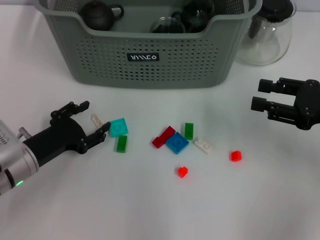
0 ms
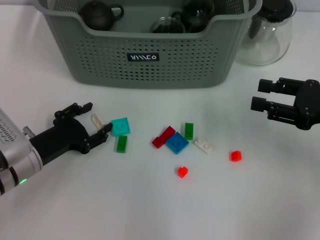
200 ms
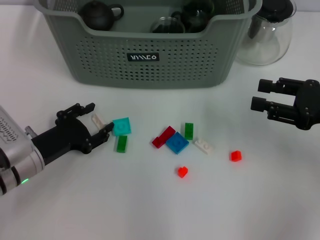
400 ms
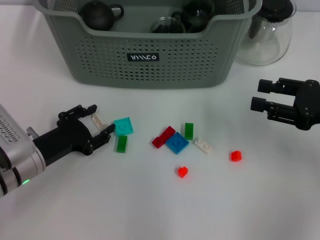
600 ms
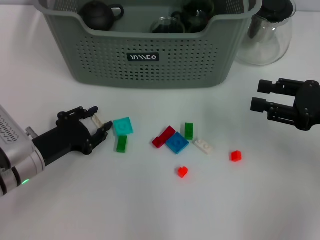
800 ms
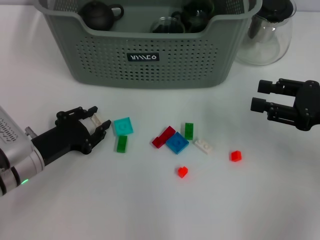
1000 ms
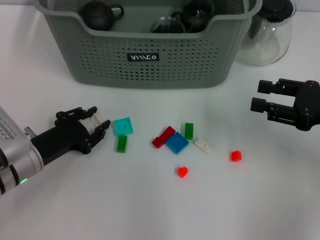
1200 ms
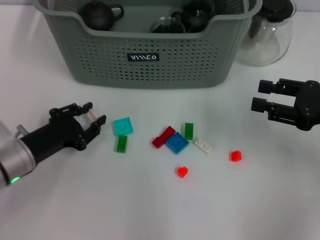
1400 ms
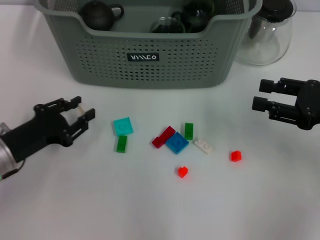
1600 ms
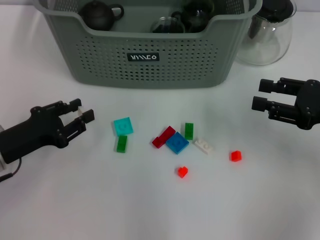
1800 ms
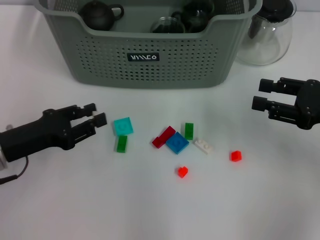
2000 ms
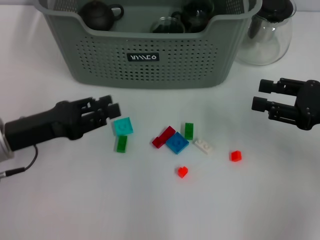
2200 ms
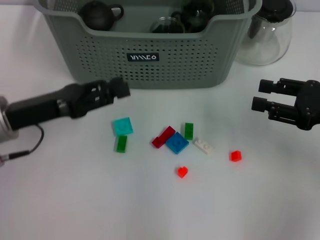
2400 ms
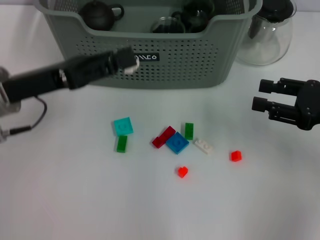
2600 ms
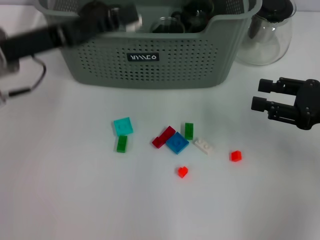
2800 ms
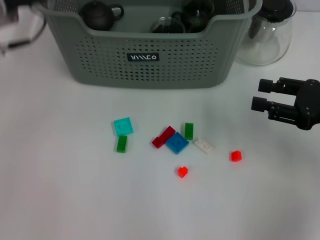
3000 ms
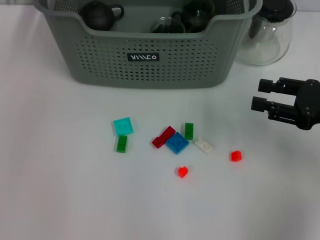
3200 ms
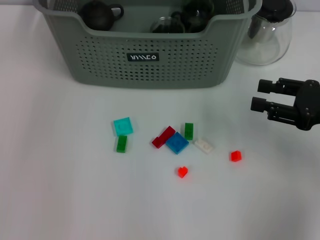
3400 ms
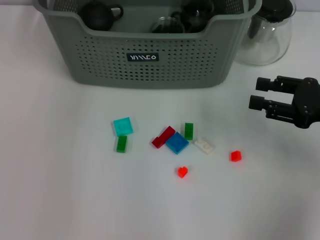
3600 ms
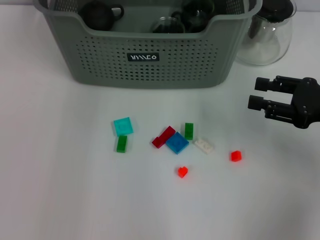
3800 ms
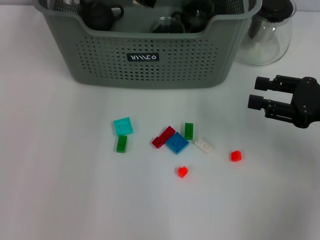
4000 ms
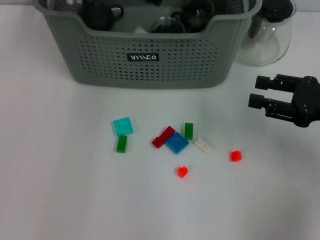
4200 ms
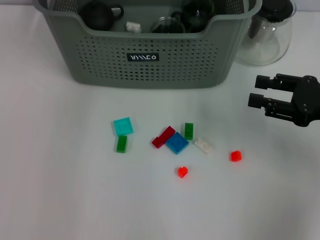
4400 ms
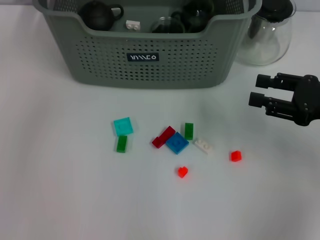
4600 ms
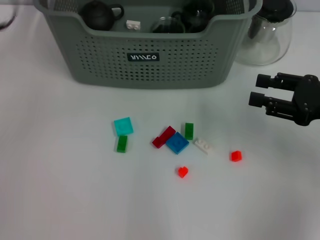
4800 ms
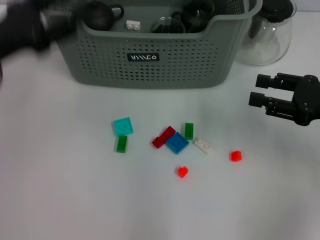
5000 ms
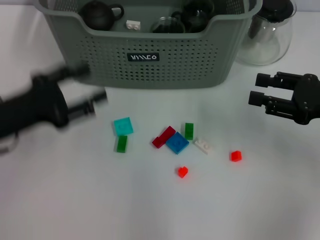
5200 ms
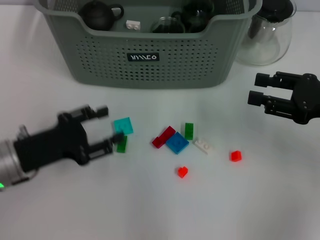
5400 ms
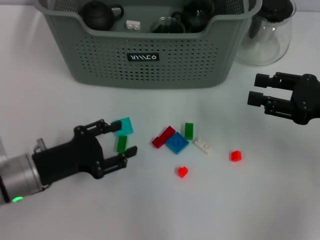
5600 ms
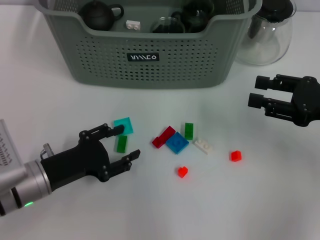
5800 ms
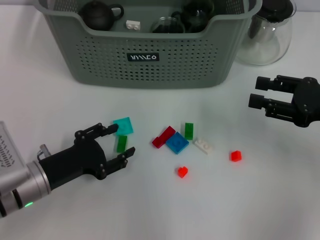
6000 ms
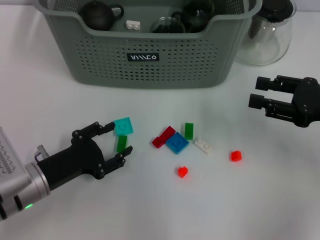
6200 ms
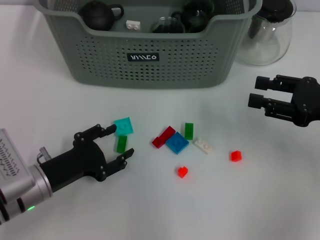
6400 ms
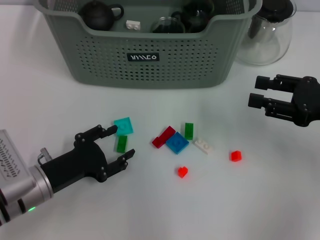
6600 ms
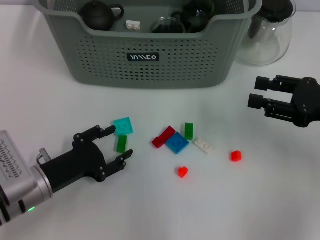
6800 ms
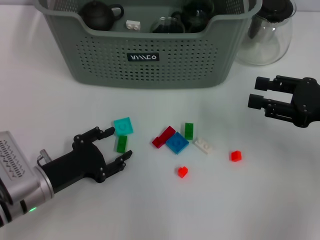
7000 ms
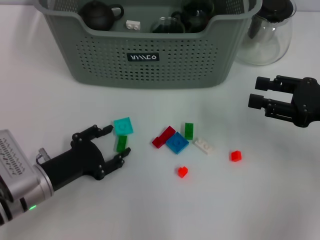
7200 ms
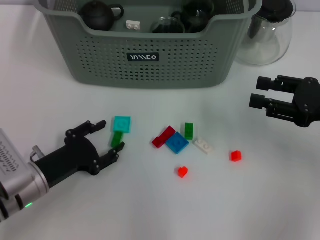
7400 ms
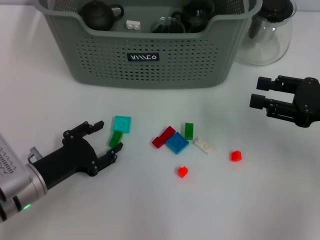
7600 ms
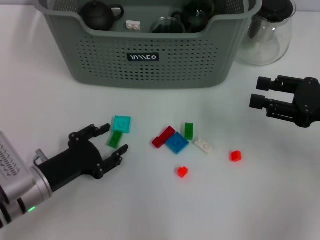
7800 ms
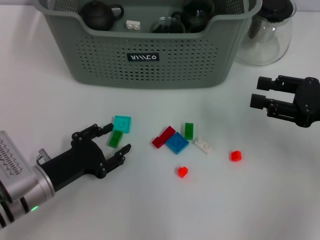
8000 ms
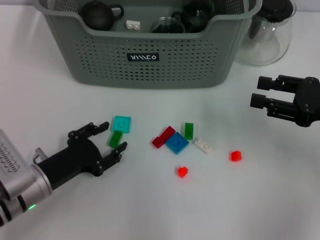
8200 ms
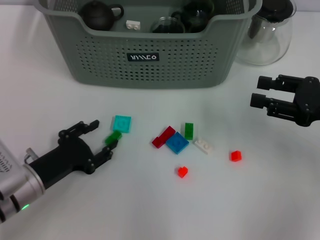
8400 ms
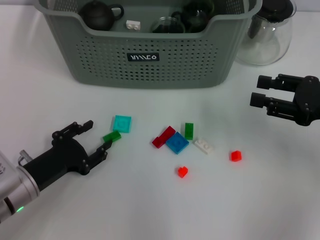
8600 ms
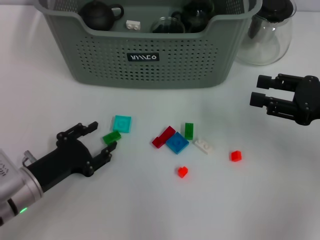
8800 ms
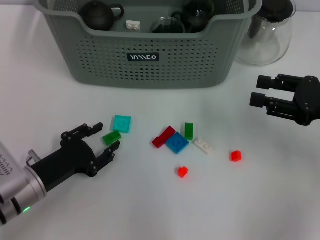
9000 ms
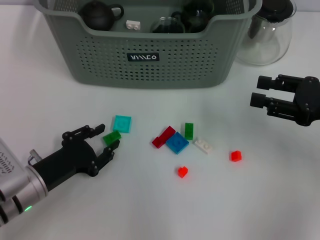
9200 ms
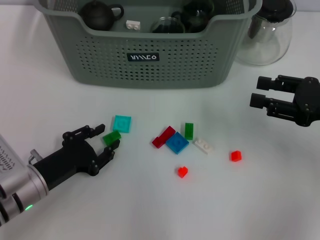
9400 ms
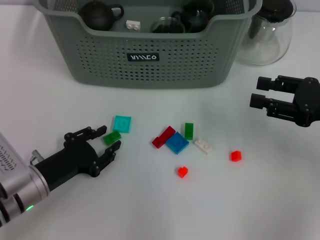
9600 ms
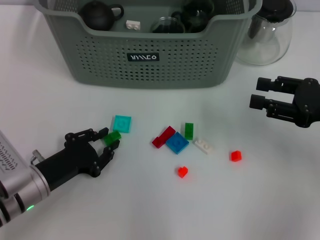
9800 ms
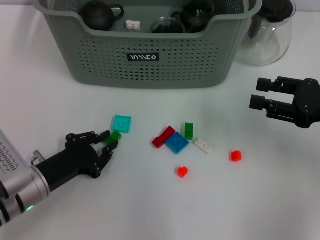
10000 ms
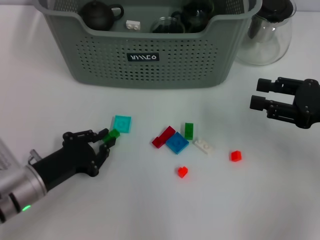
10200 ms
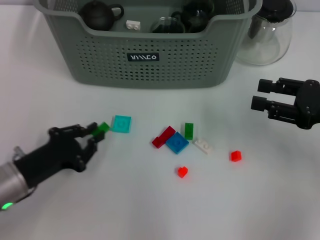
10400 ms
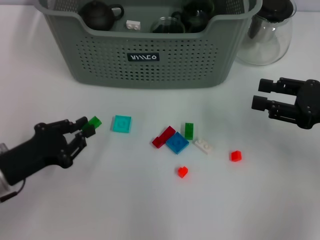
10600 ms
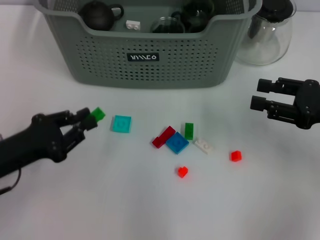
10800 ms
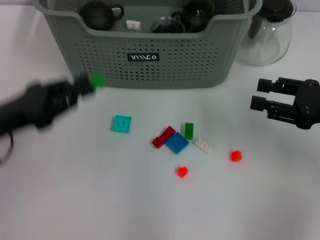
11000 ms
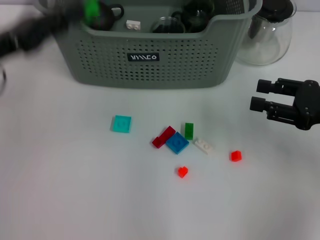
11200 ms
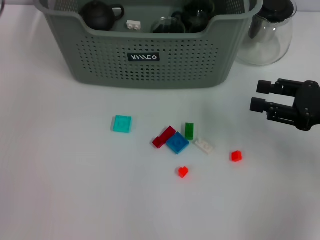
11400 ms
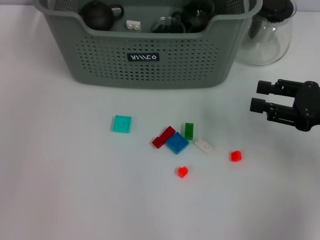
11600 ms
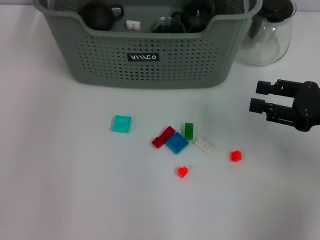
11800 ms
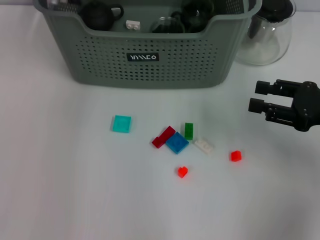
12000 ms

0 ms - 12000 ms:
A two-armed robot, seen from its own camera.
Task of the whole recording: pick up the teacup on the table and place it into the storage bin, pick up the block on the table and place it into the storage bin.
Step, 1400 ms - 4400 ms: Place the white block in the storage box with left gripper.
Step, 4600 ms - 10000 ms: Grasp the green block with left gripper.
0 ms - 1600 ms: The left gripper closes its fingers.
1600 ms - 3000 ms: The left gripper goes about 20 cm upward and forward.
3000 ms - 4400 ms: The left gripper travels to the right and forward by some 15 cm.
4400 ms - 6000 ms: The left gripper shifts some 35 cm backward and downward.
6000 ms - 7600 ms: The grippers move only a little.
7600 ms - 9000 ms: Neither gripper changes place.
9000 ms - 10400 ms: The left gripper closes up.
10400 ms - 12000 ms: The left gripper is displaced forward, upward and to the right by approximately 35 cm.

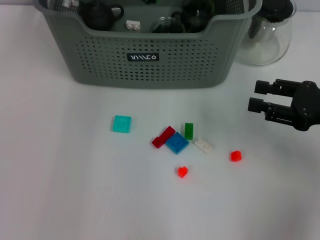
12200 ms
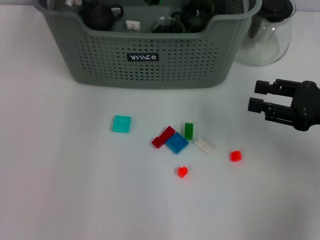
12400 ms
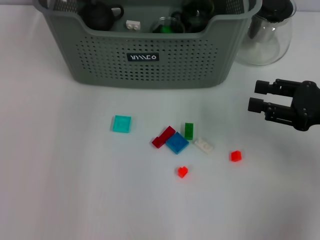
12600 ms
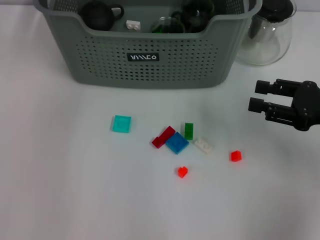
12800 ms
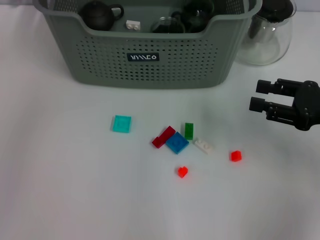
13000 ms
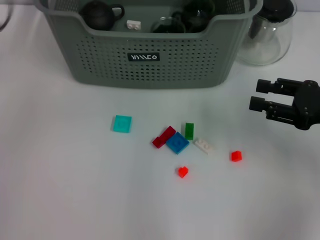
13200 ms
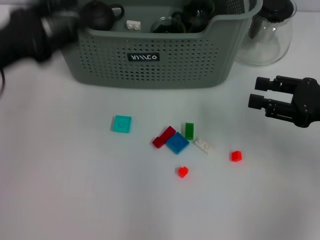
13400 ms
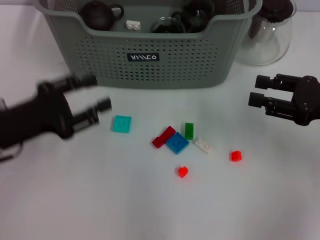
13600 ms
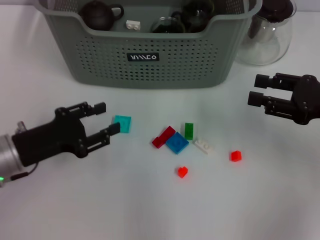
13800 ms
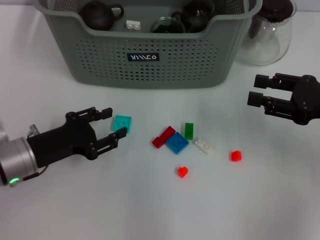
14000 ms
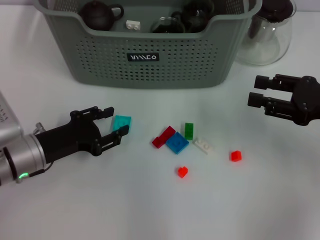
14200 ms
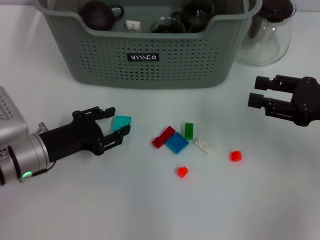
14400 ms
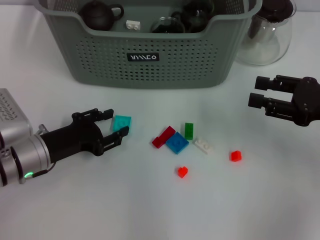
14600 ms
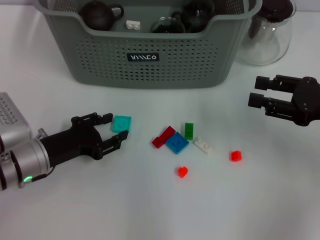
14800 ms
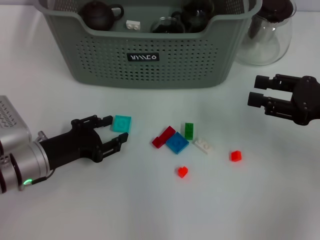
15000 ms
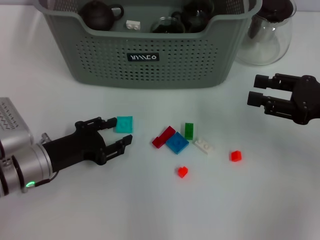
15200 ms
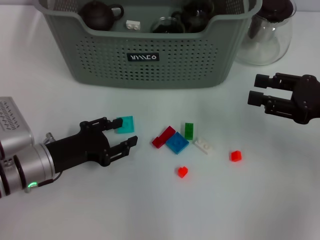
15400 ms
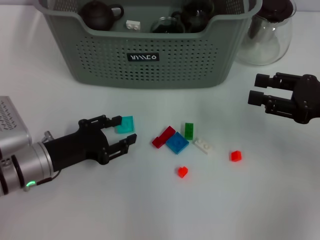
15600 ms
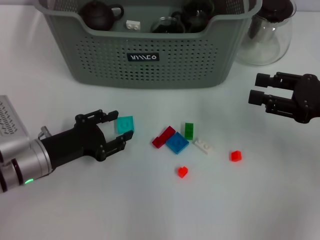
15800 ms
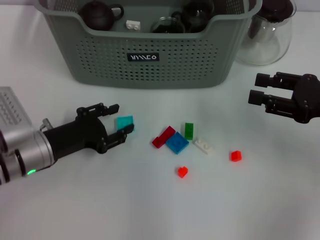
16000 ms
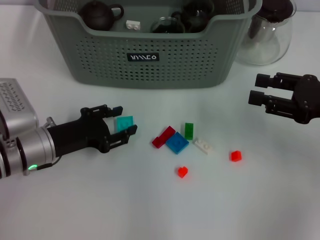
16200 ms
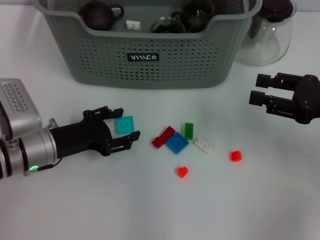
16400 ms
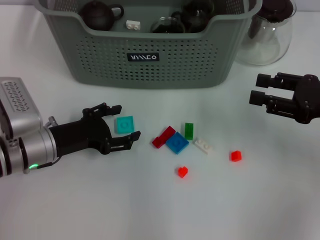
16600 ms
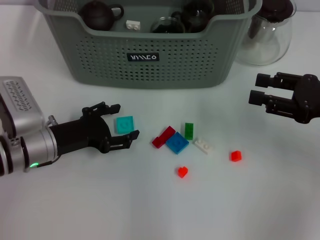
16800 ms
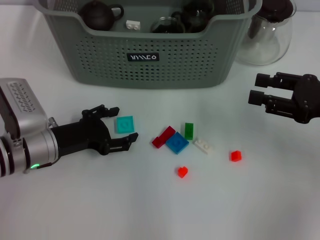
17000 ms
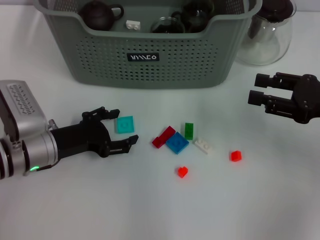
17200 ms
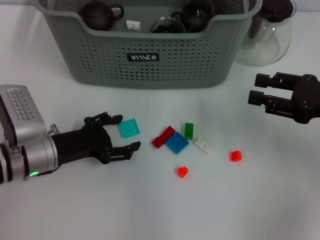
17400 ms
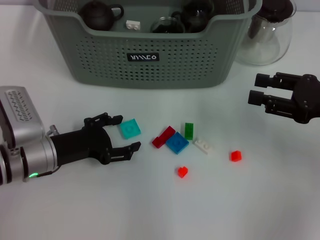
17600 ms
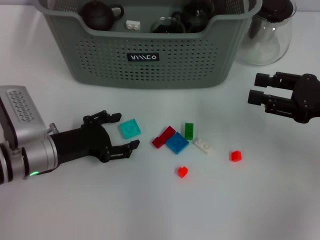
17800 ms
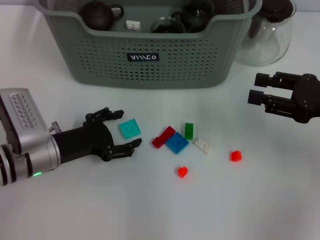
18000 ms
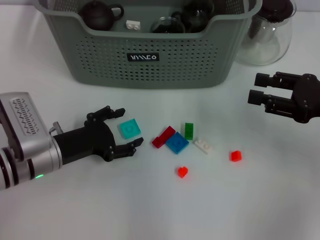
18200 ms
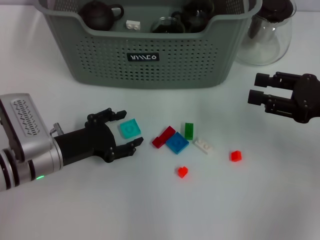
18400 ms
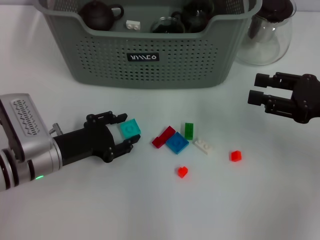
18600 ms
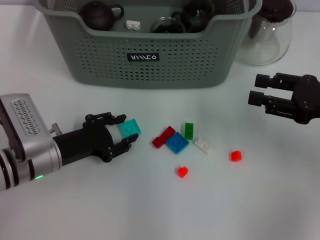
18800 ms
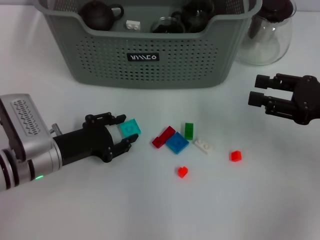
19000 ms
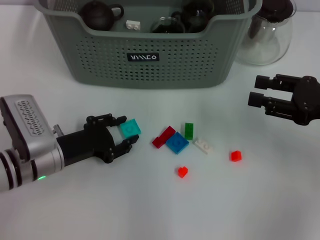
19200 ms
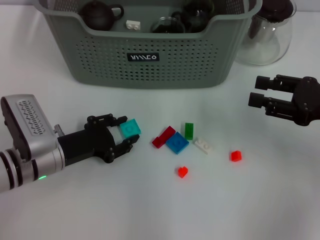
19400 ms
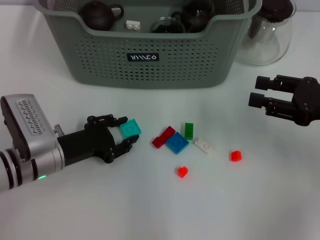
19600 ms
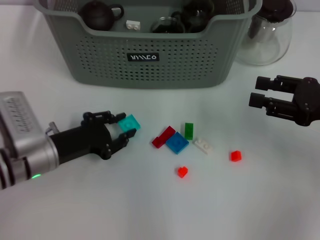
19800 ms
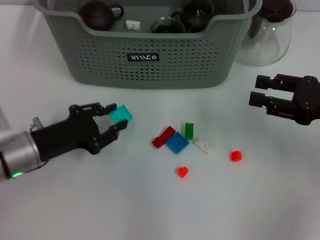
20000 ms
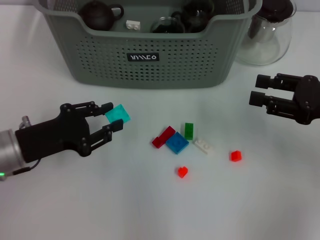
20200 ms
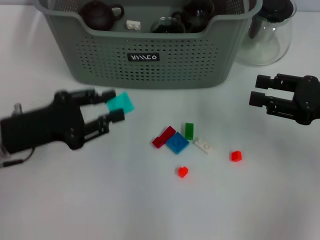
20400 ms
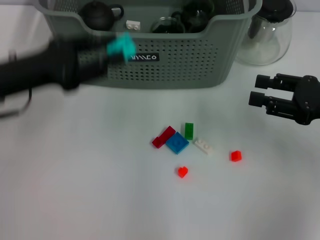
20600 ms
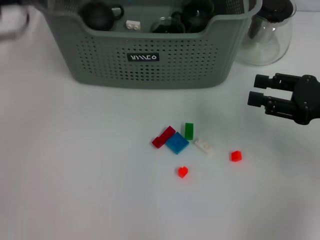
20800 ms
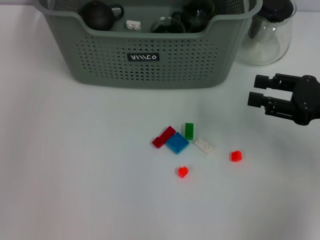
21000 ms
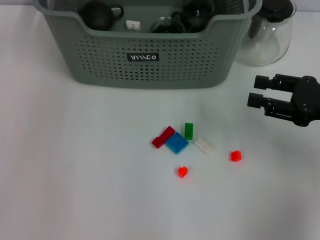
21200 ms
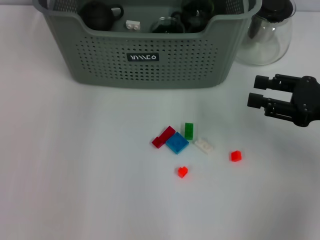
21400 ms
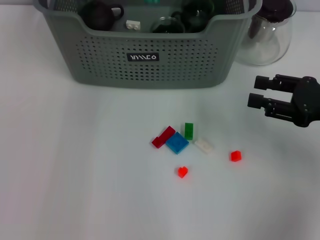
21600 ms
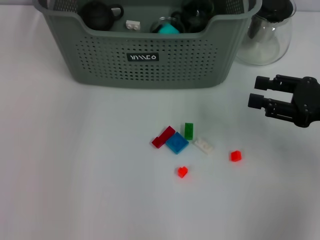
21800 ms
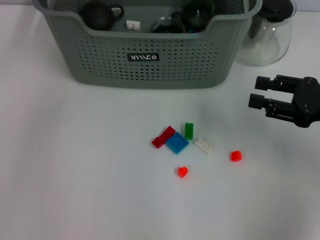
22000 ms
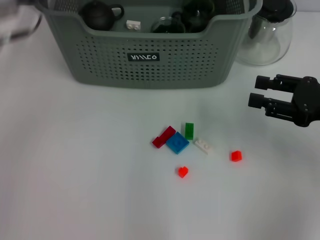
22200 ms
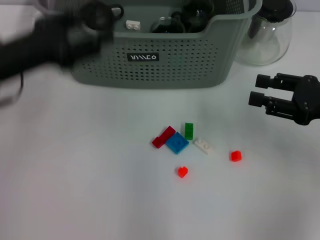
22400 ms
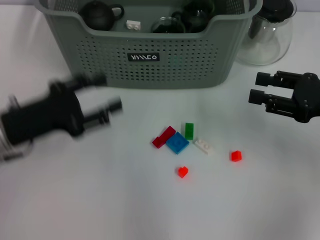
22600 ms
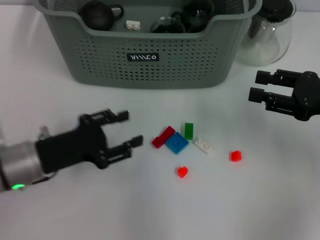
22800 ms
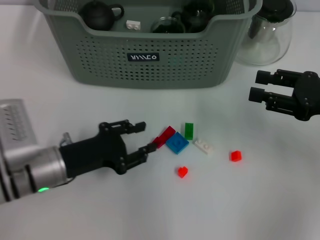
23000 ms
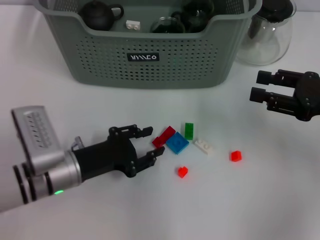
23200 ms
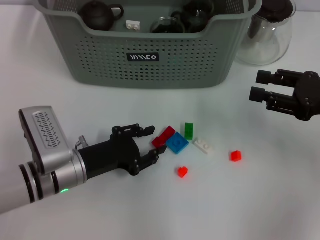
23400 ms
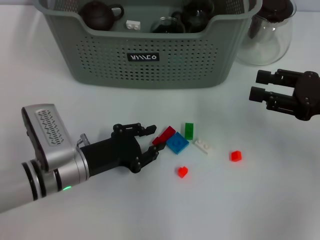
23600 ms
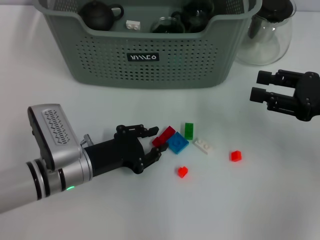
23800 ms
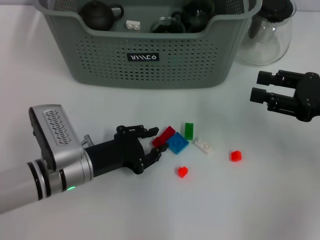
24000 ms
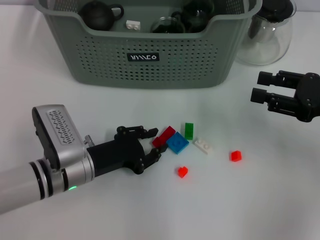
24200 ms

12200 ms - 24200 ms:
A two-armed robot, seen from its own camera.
Task of the whole recording: pick up the teacup on the table and place it into the storage bin, pick up the block on the table and place it into the storage bin.
Step, 13000 ms - 19600 ms: Grasp the light blue block with left gripper.
Step, 19800 ms - 22000 ms: Place the light blue block in the storage box with left gripper.
12200 ms - 13800 ms: The left gripper moves backward, downward and to the left, roughly 30 cm, and opens up.
13800 ms - 15200 ms: The left gripper ends up approximately 5 cm from where it was.
15200 ms - 18200 ms: The grippers make only small movements.
18200 ms - 19800 ms: The left gripper closes its fingers.
19800 ms - 21200 ms: The left gripper moves upward and forward, about 30 cm.
21200 ms - 22600 ms: The left gripper goes roughly 25 cm backward and downward.
22600 ms - 24200 ms: The left gripper goes some 15 cm downward and to the right.
